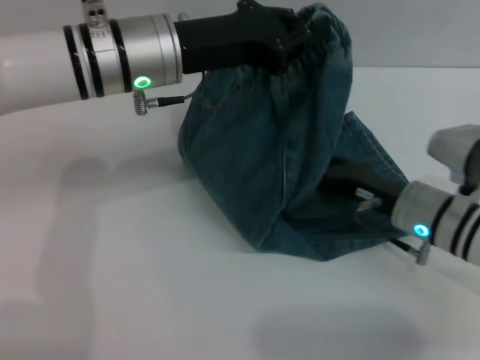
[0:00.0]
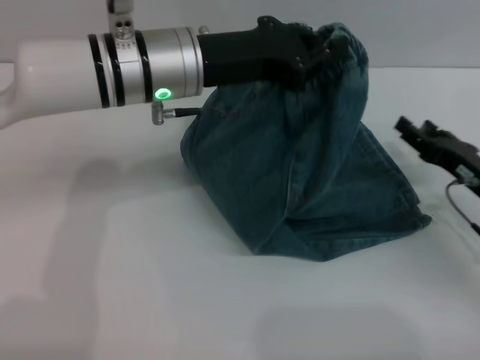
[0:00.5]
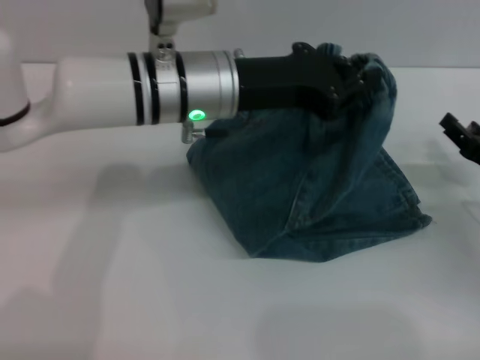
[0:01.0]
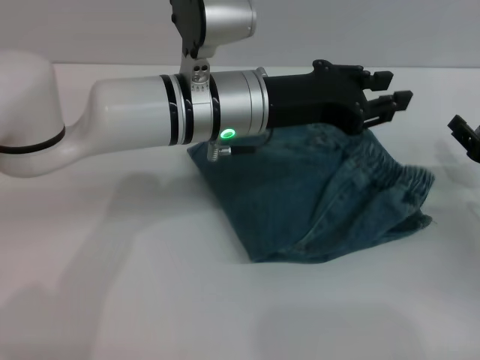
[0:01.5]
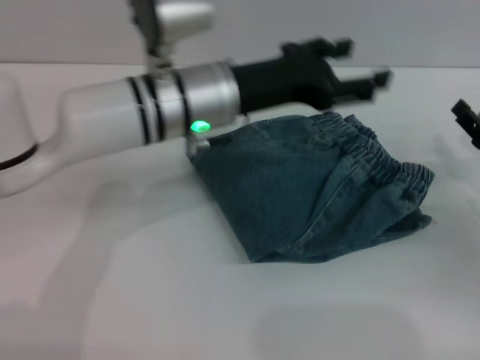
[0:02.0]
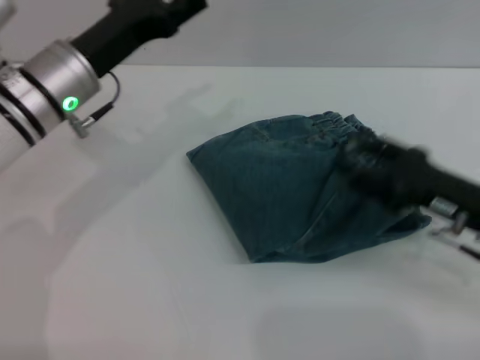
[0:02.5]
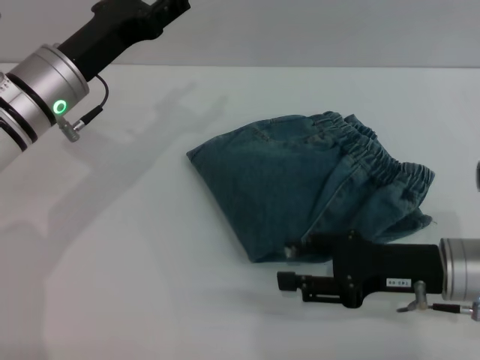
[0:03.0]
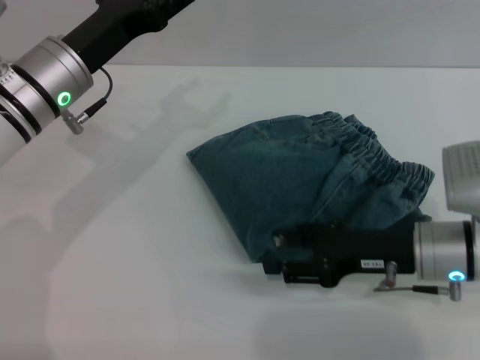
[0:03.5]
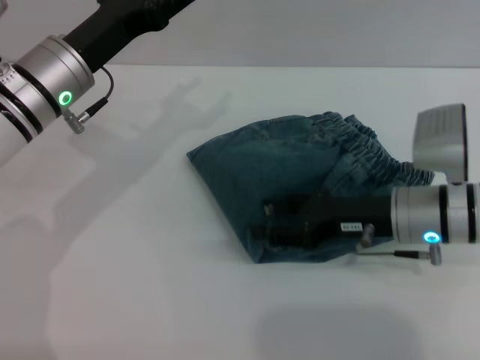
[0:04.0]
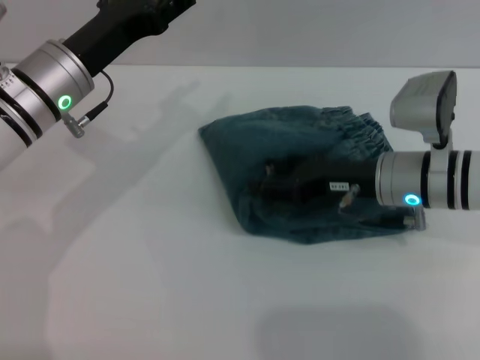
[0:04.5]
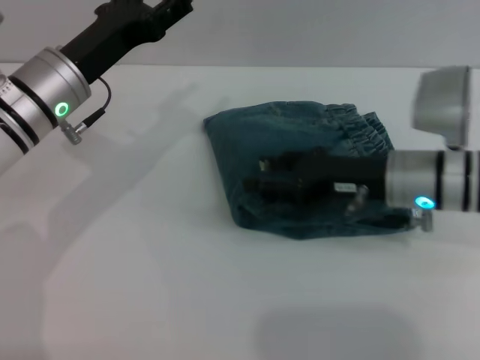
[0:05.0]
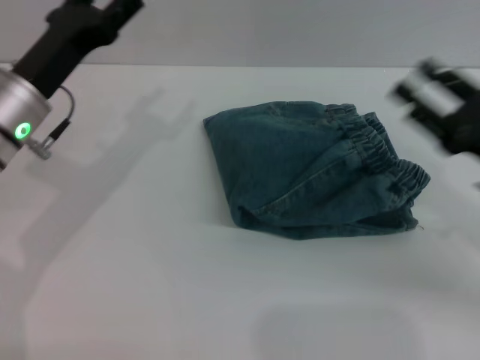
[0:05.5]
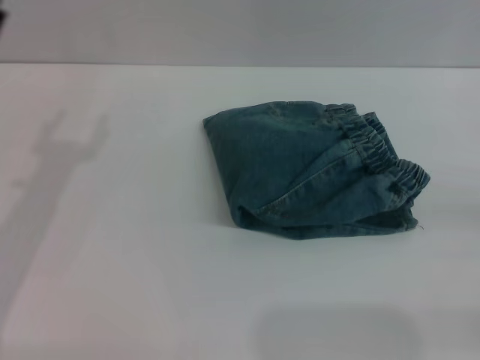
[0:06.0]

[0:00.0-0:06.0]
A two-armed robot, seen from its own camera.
Step, 0:02.0 to 0:05.0: Place the folded trousers onto the center area with the right grippers.
0:00.0 to 0:02.0: The left gripper shifts by approximately 5 cm, and opens, while the right gripper goes about 10 cm to the right.
0:02.0 to 0:04.0: Both grippers move to the left, roughly 10 cm.
0:04.0 to 0:06.0: The right gripper travels to the right and backward by some 25 cm. The left gripper heads to the left and backward, covering approximately 15 cm.

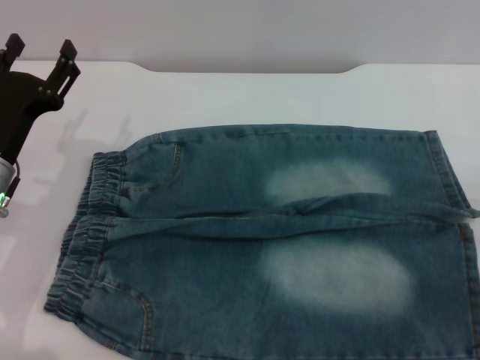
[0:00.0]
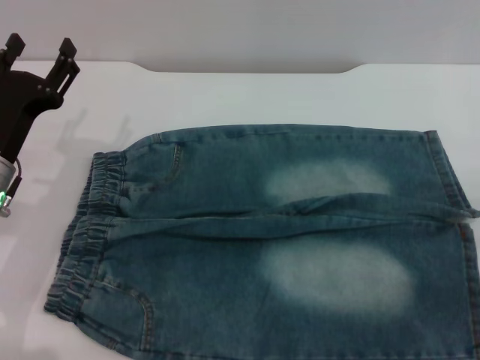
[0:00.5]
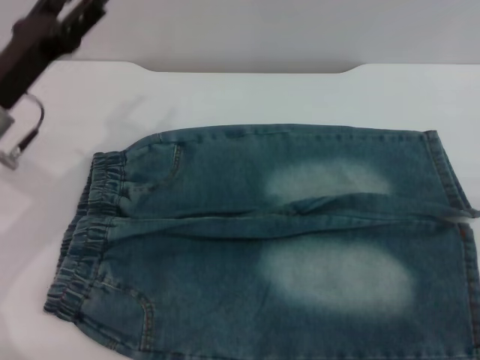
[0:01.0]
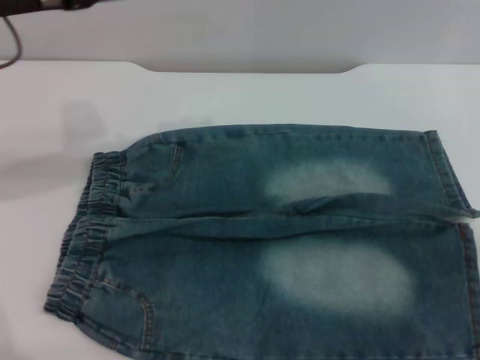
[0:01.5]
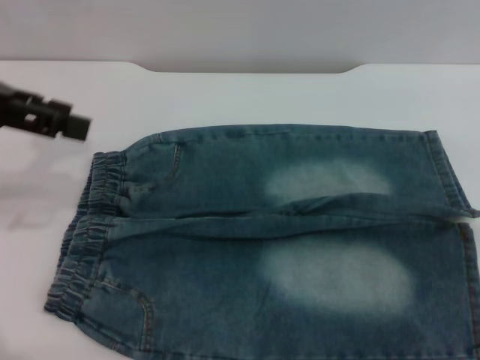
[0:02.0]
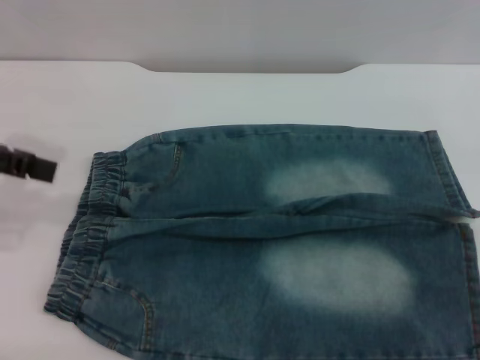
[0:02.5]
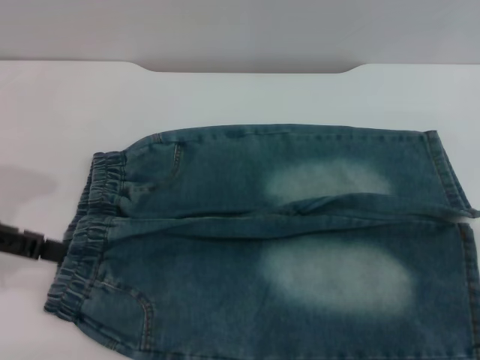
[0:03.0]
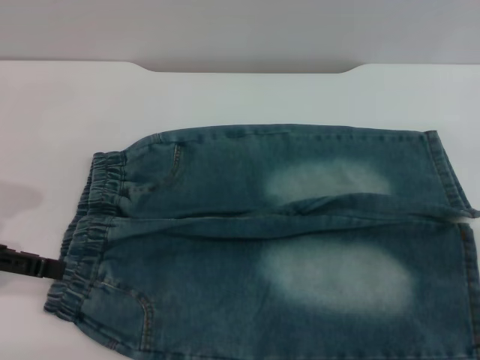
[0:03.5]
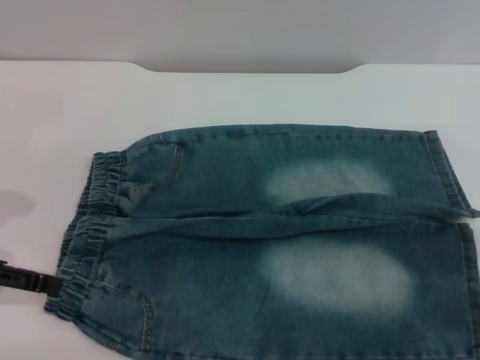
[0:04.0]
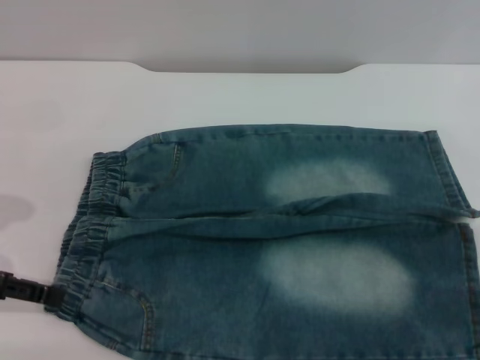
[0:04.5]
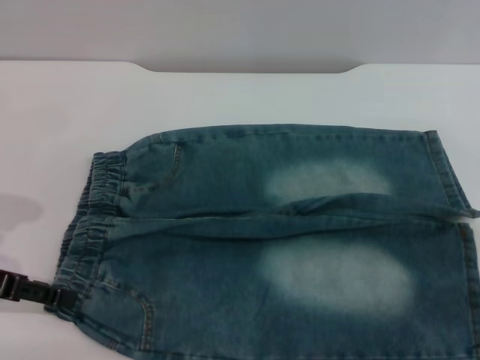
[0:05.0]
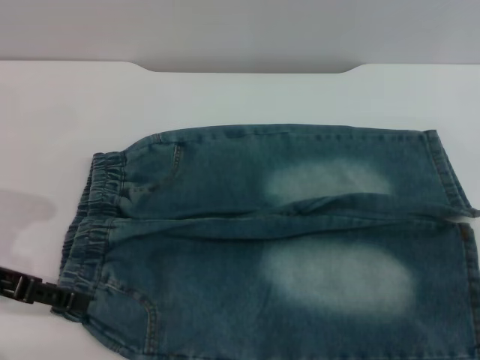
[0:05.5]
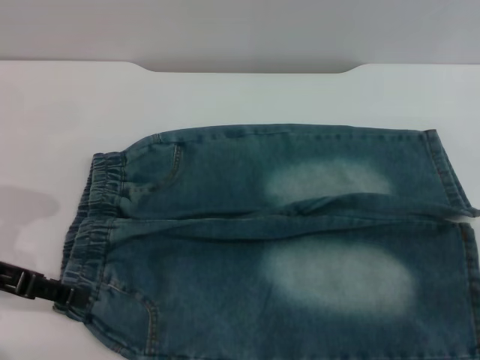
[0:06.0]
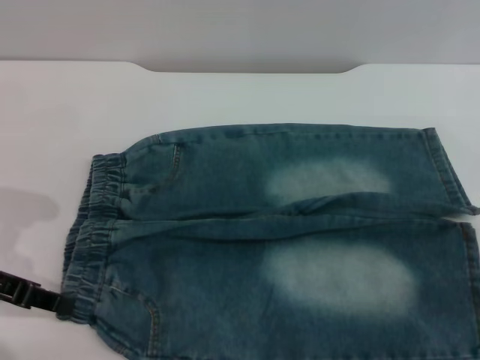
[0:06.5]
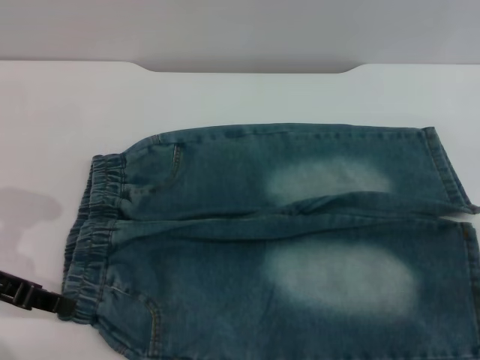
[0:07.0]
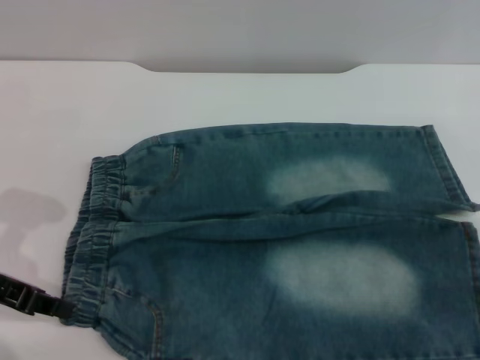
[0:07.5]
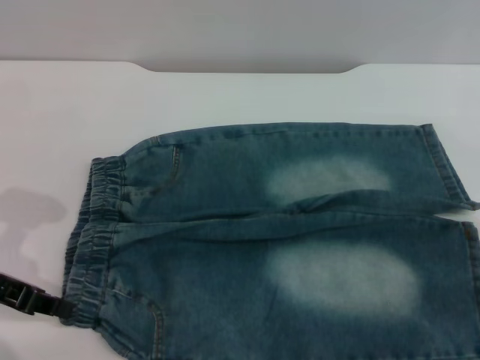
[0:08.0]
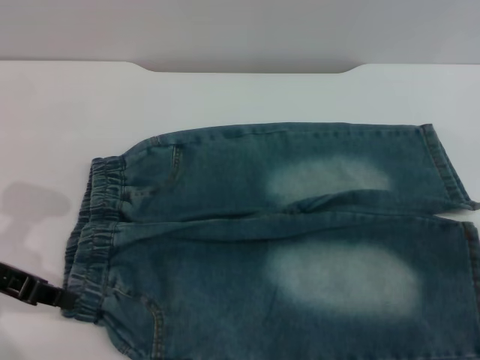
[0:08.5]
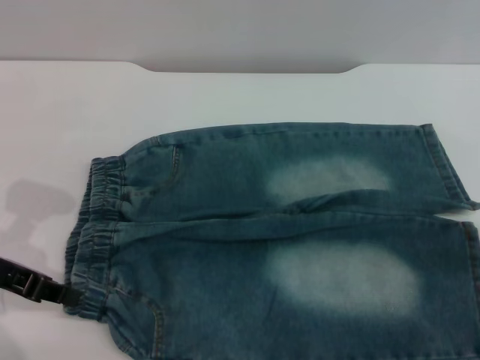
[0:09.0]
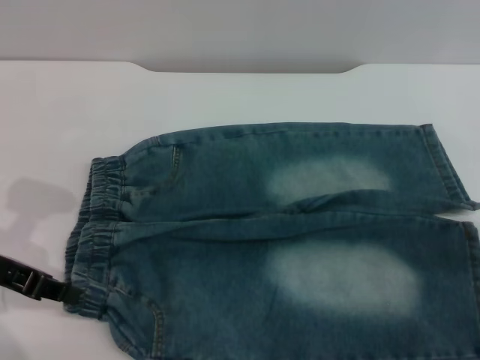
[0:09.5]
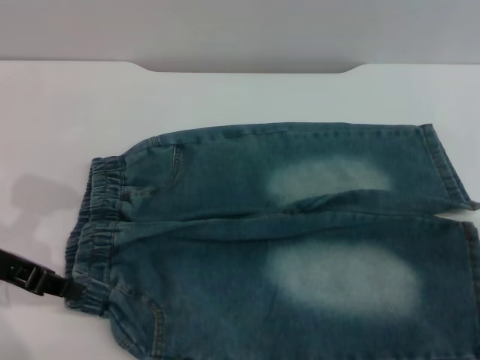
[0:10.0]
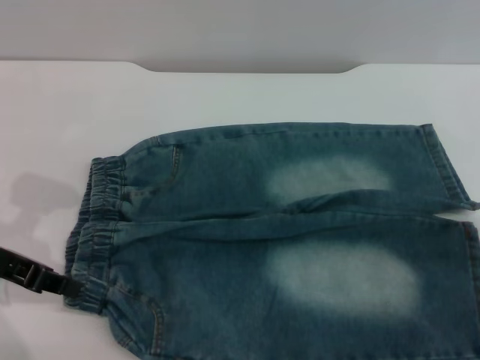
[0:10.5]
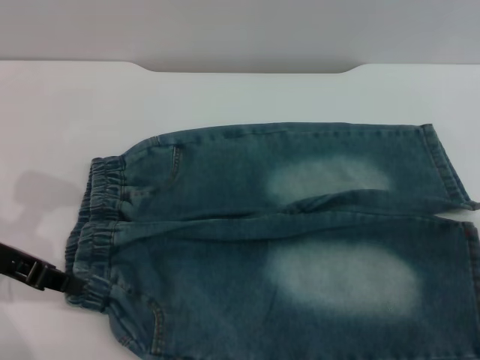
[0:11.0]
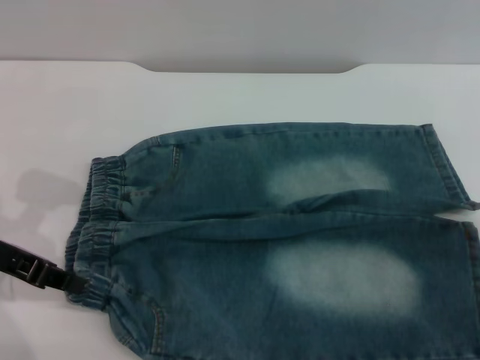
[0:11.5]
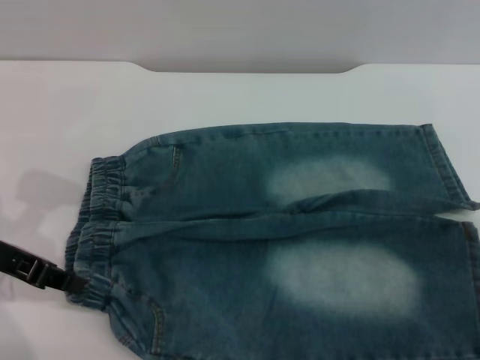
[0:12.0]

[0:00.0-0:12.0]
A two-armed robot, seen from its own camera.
0:00.0 to 0:02.0: The left gripper moves upward, roughly 20 cm.
0:02.0 to 0:04.0: The left gripper travels downward by about 15 cm.
0:04.0 to 0:06.0: The grippers move only a little.
0:06.0 to 0:08.0: The left gripper closes up.
0:10.0 to 0:12.0: The grippers move only a little.

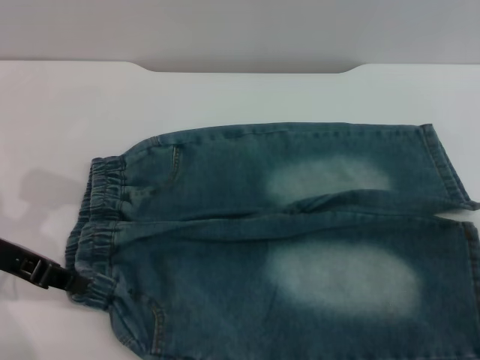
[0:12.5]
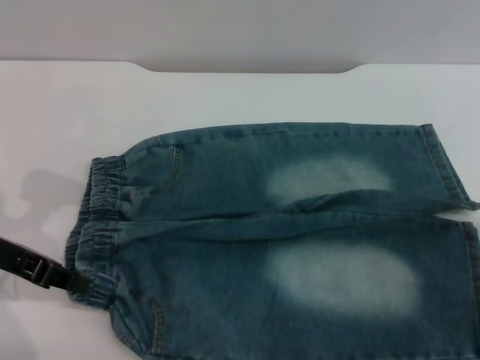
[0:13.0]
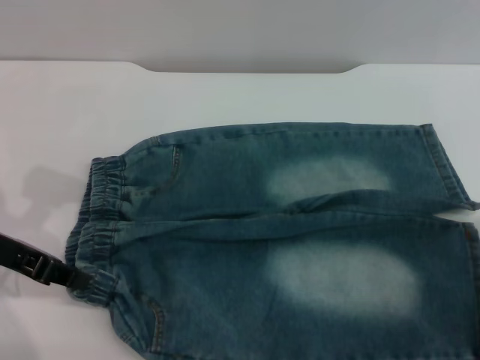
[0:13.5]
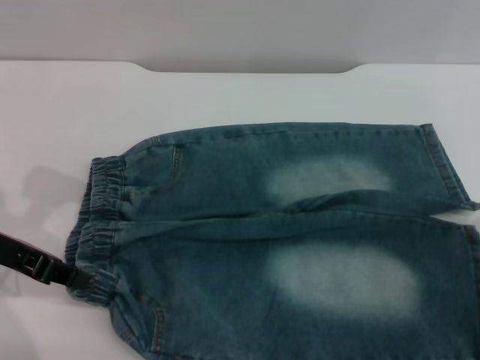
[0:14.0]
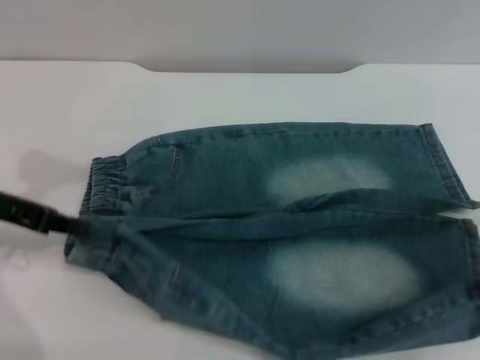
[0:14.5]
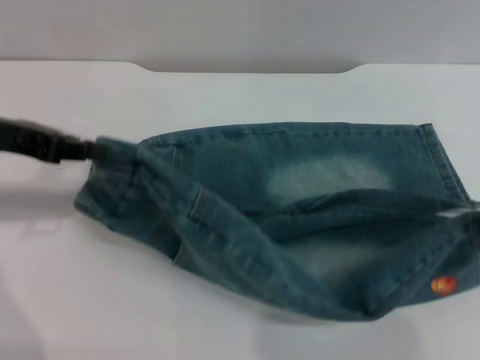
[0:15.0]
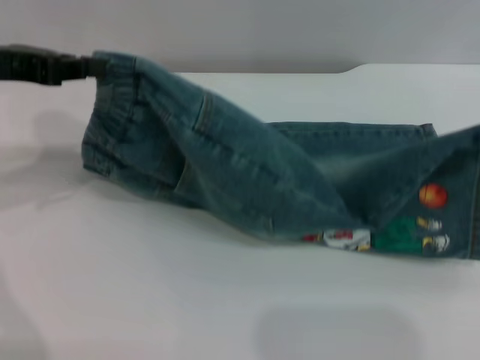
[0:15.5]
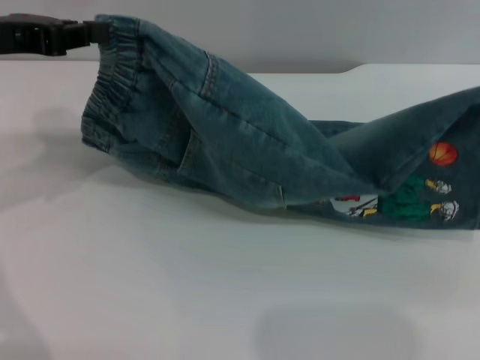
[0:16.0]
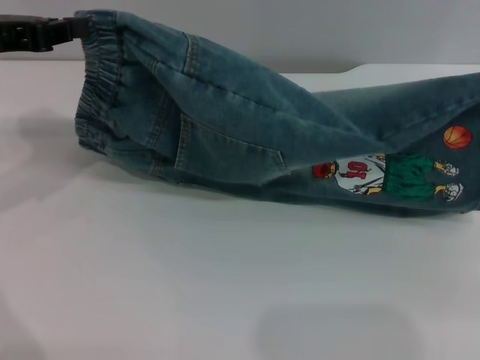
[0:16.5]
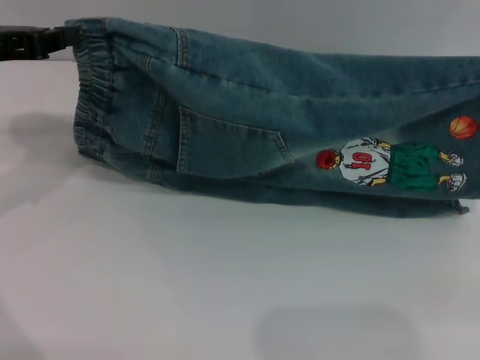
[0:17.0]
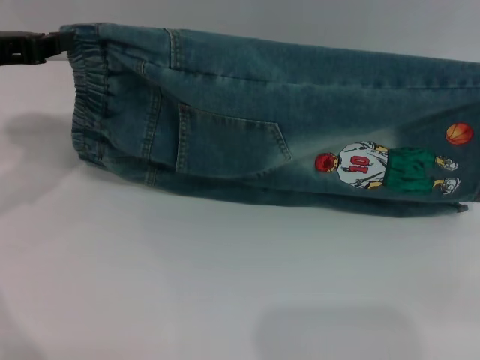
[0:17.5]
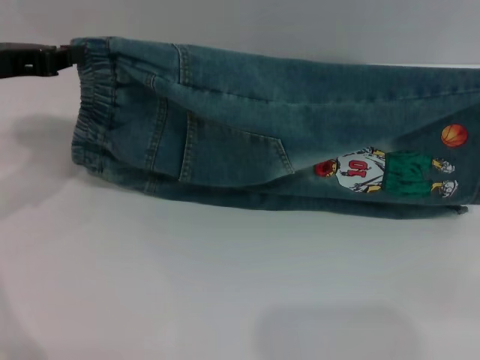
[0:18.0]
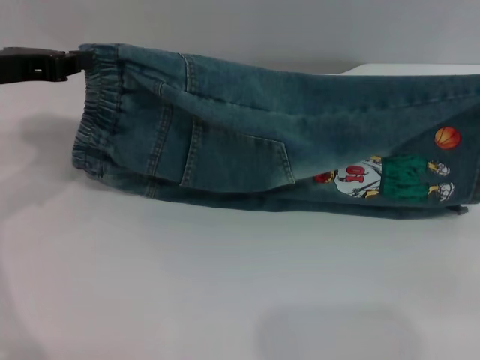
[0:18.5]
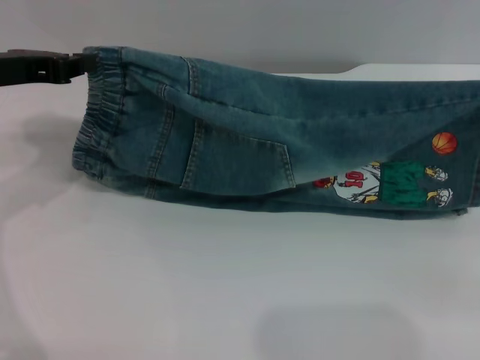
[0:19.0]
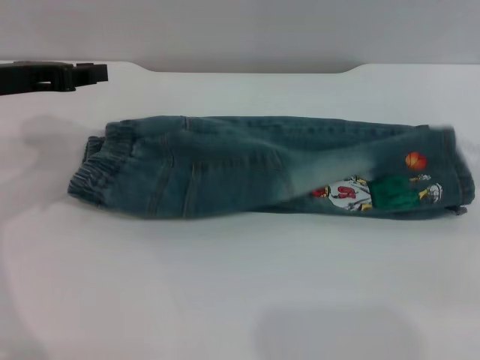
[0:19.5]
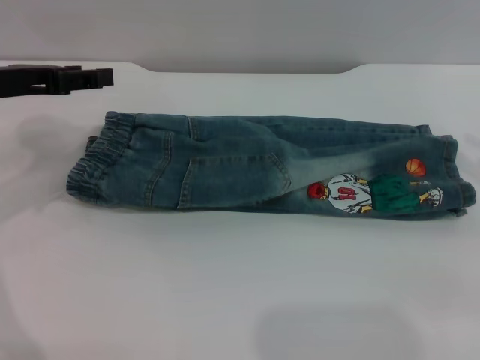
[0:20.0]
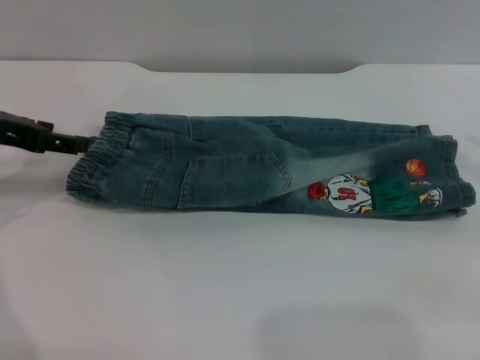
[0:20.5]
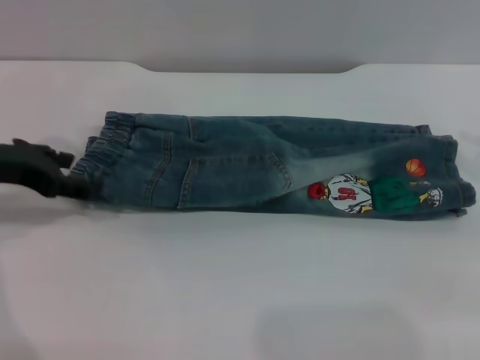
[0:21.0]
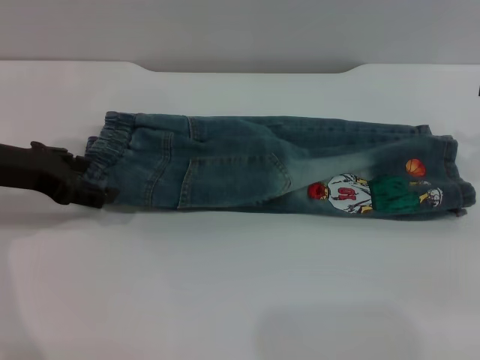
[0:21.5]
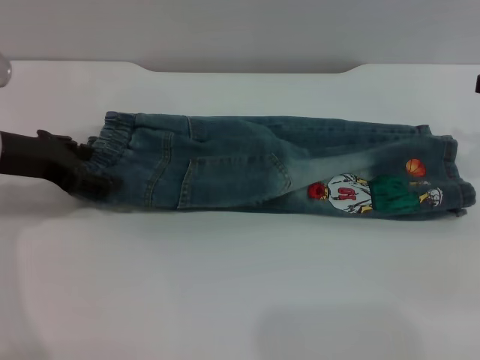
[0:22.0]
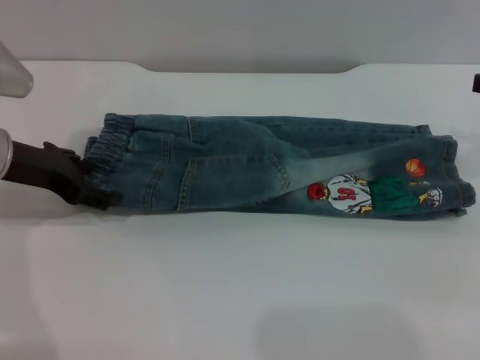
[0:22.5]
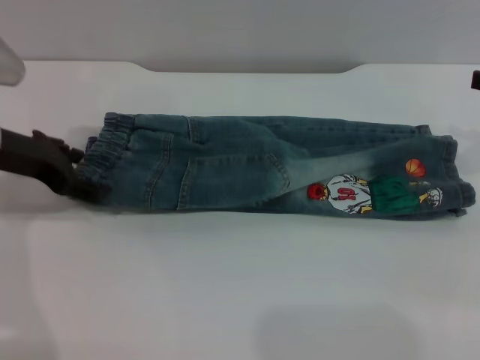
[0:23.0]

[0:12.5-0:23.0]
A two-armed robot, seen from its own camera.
Step, 0:12.5 to 0:20.5: Fold the bottom of the pants upward with both grippers.
0:12.5 to 0:14.5: The right gripper closes up.
0:14.5 to 0:16.5: The grippers both shift upward by approximately 10 cm.
0:16.5 to 0:19.0: The right gripper shifts about 5 cm downward.
0:19.0 to 0:21.0: The right gripper opens; the left gripper shifts by some 5 cm, and opens up.
0:21.0 to 0:23.0: The grippers make only small movements.
